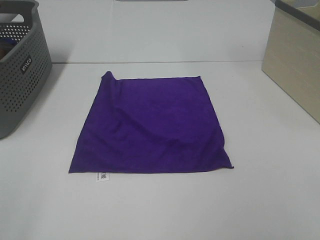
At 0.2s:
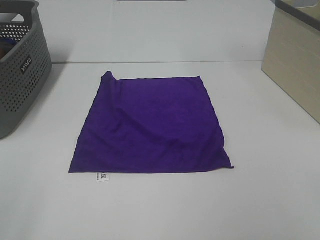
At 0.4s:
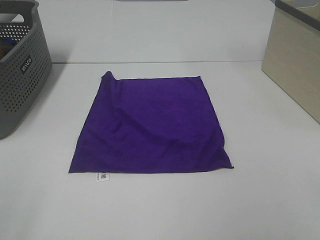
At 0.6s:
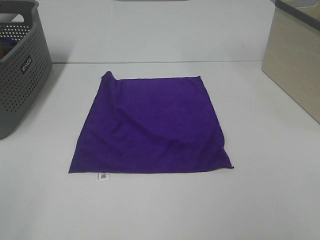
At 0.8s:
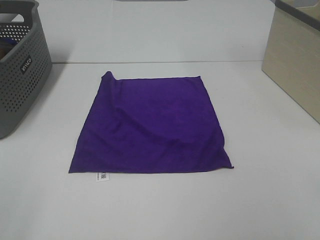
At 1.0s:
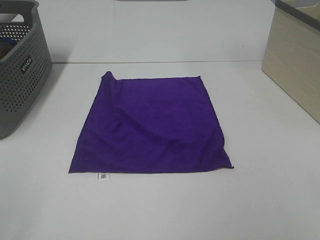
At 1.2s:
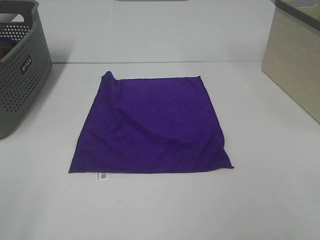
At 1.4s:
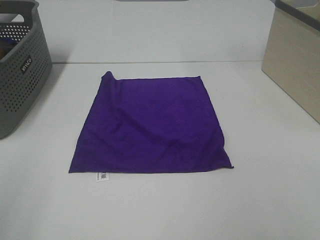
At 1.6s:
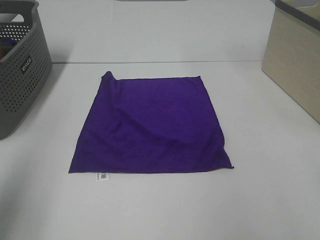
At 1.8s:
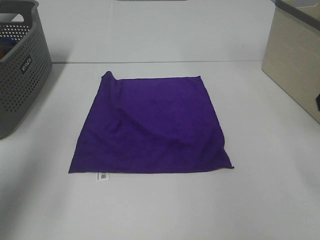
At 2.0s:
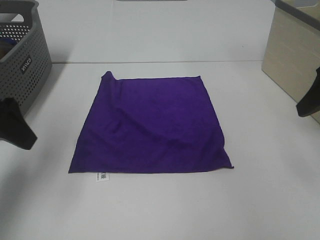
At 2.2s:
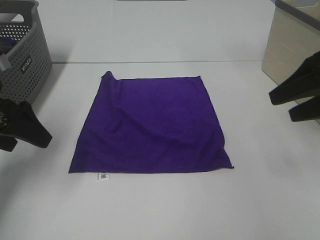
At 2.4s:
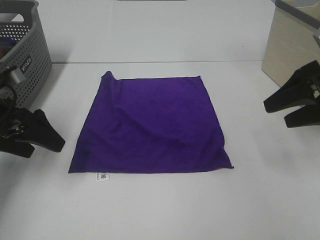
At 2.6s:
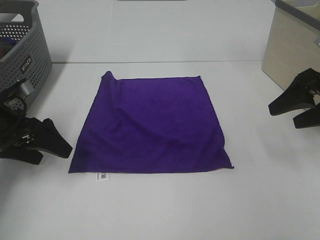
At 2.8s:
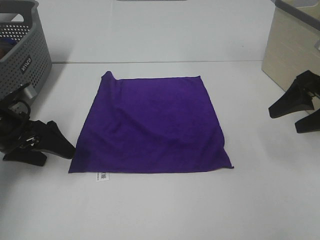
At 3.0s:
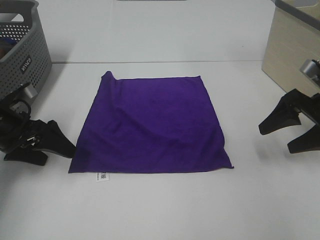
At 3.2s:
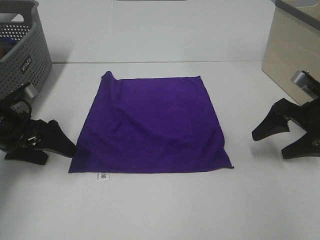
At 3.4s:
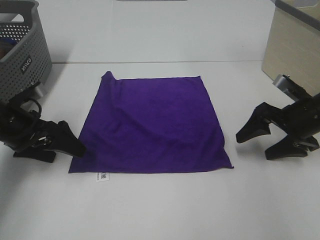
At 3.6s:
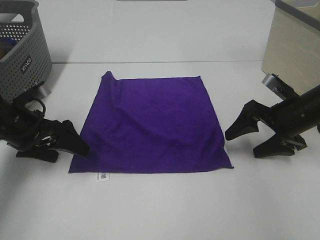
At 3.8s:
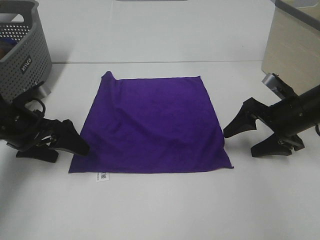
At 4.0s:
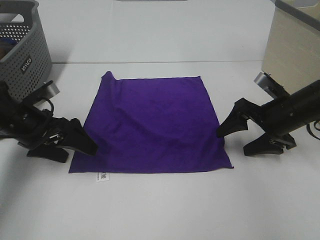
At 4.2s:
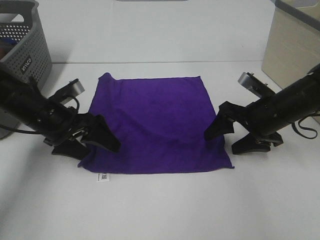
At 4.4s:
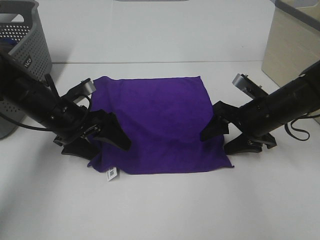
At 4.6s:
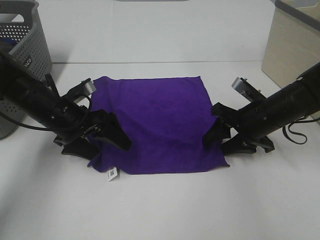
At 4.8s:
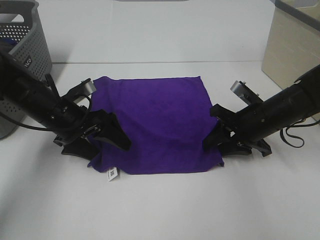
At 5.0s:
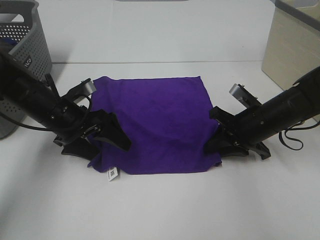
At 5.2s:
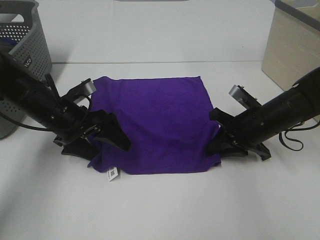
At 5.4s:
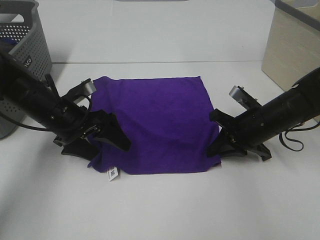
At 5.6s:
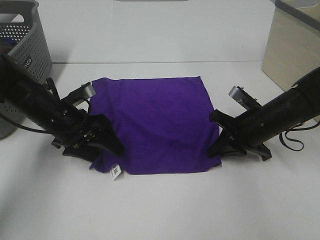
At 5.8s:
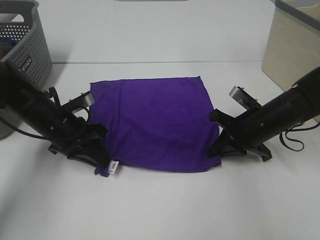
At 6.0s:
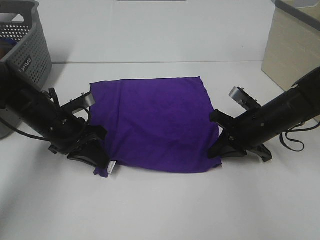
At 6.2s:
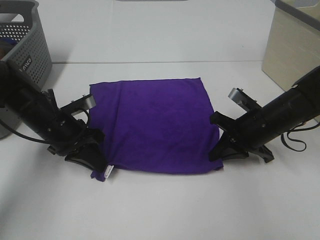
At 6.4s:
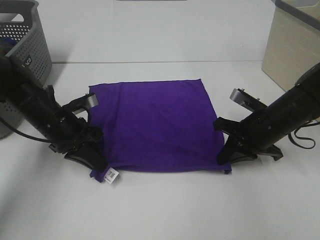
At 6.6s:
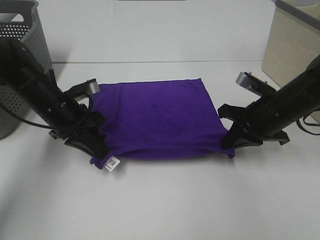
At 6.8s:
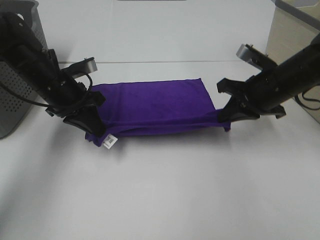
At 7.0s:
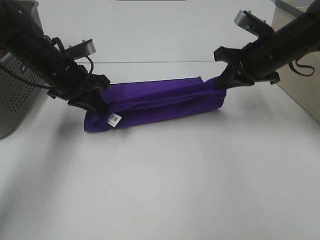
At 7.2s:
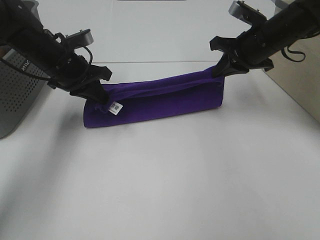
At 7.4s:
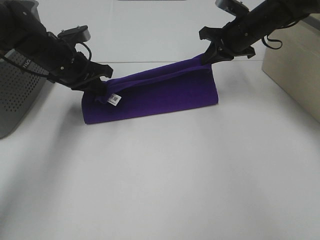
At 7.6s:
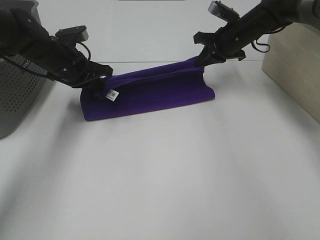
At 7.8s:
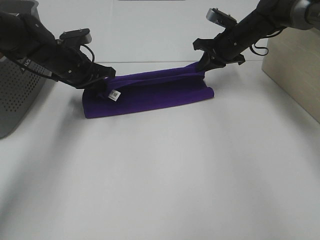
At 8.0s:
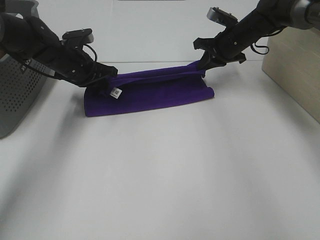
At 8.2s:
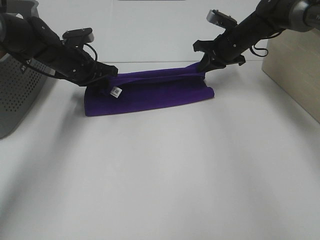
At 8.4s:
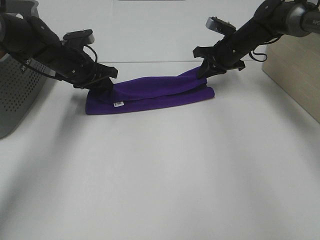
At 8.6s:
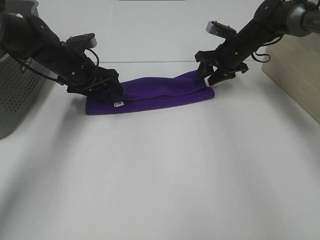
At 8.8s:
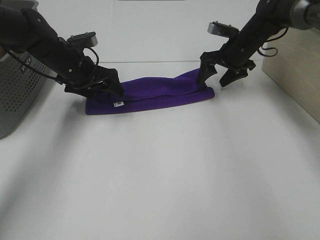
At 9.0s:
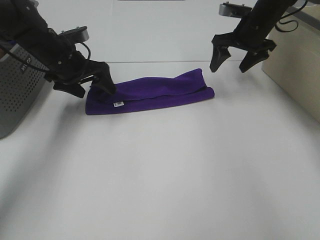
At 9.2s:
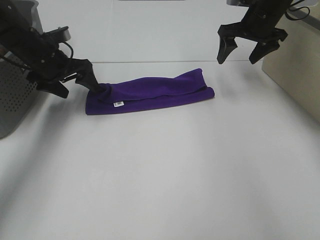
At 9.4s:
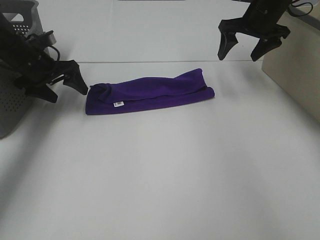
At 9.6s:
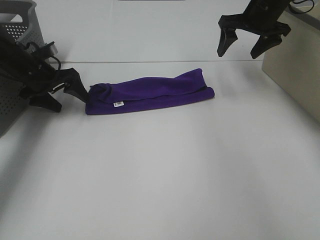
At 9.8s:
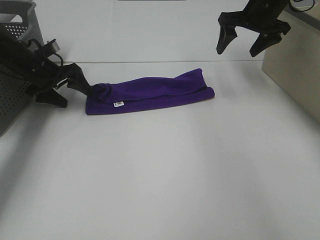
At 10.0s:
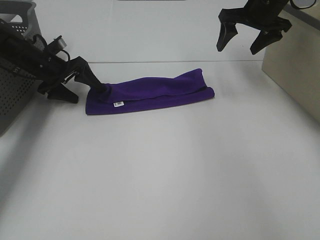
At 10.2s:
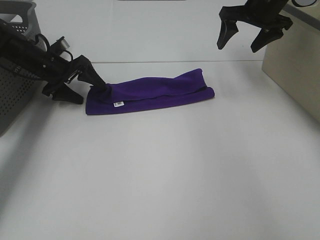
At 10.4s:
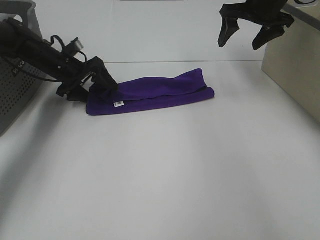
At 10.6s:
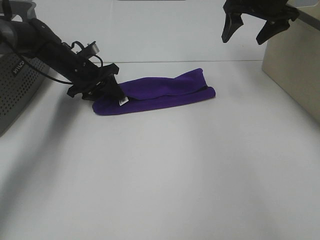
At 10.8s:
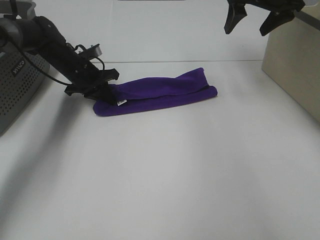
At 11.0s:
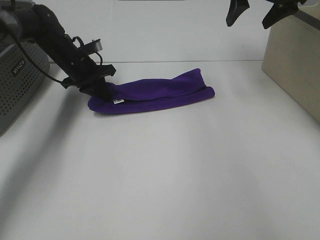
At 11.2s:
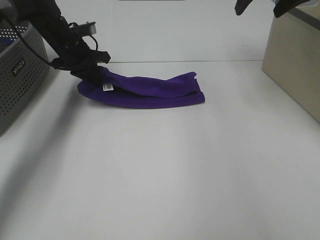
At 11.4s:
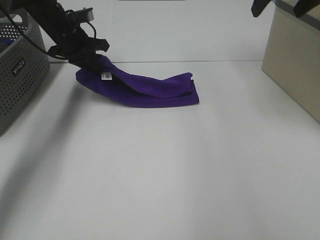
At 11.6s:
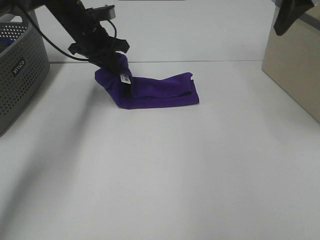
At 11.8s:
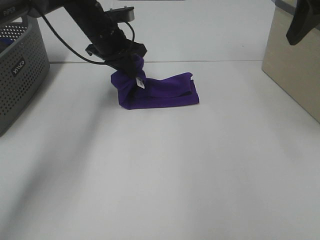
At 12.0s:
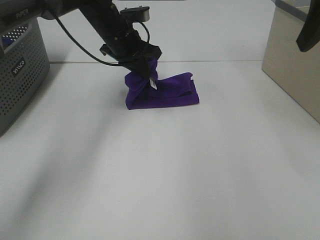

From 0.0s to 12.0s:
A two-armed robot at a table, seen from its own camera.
Task of the whole recording: Fold towels.
Step, from 0.0s to 6.2s: Left hand: grab the bottom left corner of purple towel.
Step, from 0.0s to 6.2s: Right hand: grab the bottom right corner of purple towel.
Step, from 6.4s to 8.4s: Left hand: fold the purple towel up.
Step, from 6.4s to 8.4s: Right hand: fold the purple towel up.
From 0.0s to 1.6s: The left gripper heads forward, covering about 15 cm.
From 1.6s to 3.0s: The grippers both shift downward and forward by approximately 25 cm.
From 3.0s to 4.4s: The right gripper travels to the left and downward by some 10 cm. The left gripper goes roughly 10 cm to the right.
From 4.4s to 6.0s: The right gripper closes, while the left gripper closes its fingers.
From 6.0s to 7.6s: The left gripper shifts approximately 15 cm forward and upward. Meanwhile the right gripper heads forward and upward, covering roughly 20 cm.
From 7.6s to 9.0s: The left gripper opens up. Meanwhile the right gripper shifts by approximately 5 cm, and opens.
From 9.0s to 10.4s: The right gripper goes approximately 5 cm upward; the left gripper shifts some 5 cm downward.
From 10.4s to 12.0s: The right gripper heads backward and upward, covering some 25 cm. Meanwhile the left gripper goes some 15 cm to the right and upward, and closes its fingers.

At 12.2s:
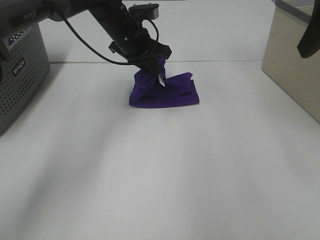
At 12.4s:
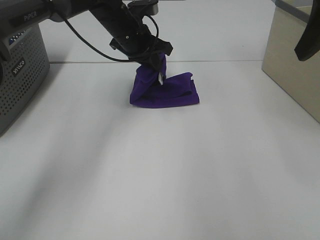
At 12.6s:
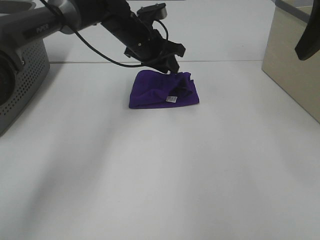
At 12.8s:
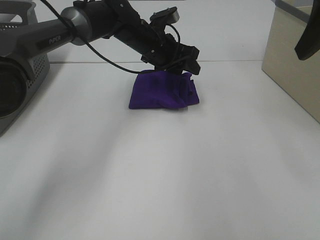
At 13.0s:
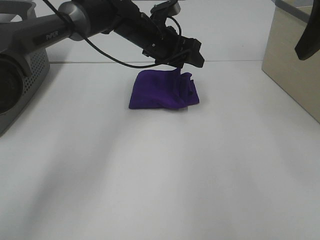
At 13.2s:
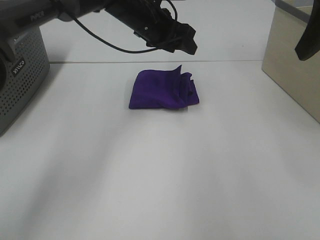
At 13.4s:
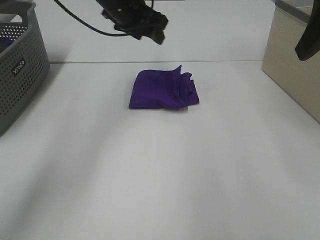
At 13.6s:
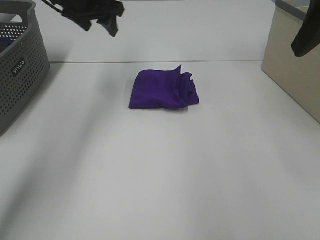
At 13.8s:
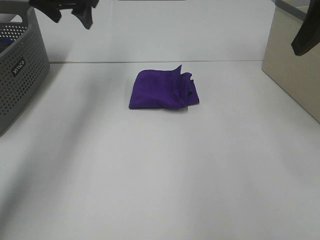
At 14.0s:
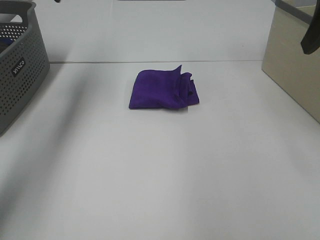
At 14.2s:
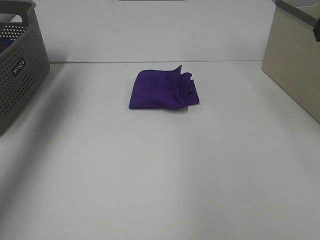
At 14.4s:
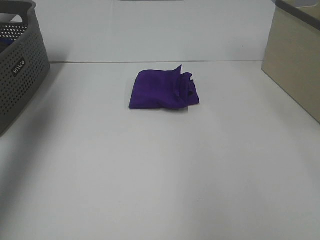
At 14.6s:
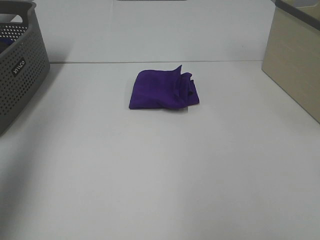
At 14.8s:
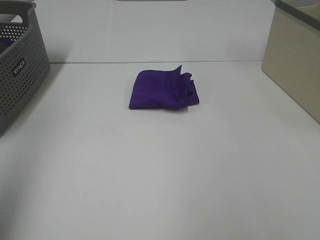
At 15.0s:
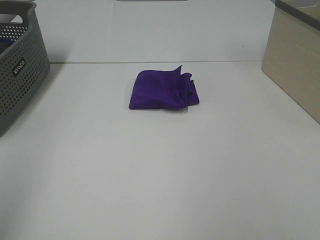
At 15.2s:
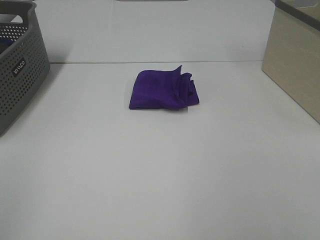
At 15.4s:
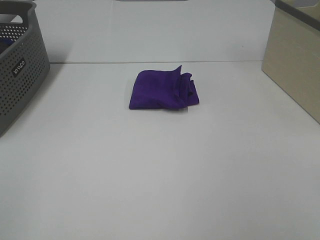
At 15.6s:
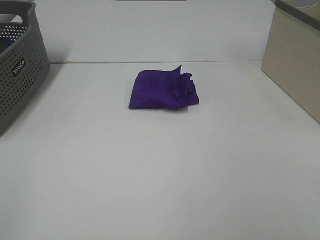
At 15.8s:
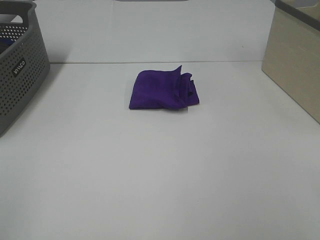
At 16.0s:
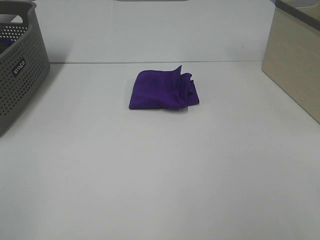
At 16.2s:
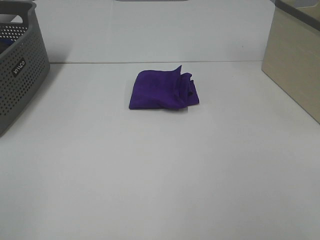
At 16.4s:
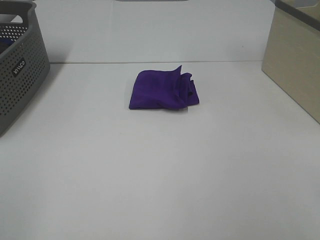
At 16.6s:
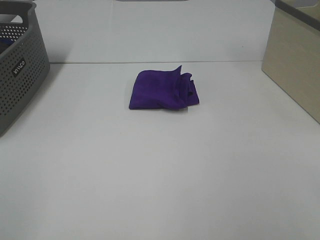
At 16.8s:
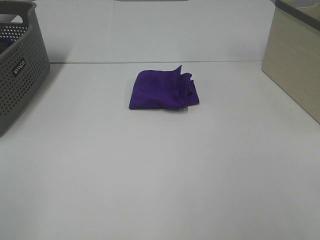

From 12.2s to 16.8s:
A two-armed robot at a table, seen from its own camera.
Task of the whole recording: Fold towels.
From 12.2s to 13.8s: The left gripper goes roughly 20 cm to the left and upward, and opens up.
From 13.8s to 15.2s: The right gripper heads backward, covering about 25 cm, while the left gripper heads backward, covering some 50 cm.
